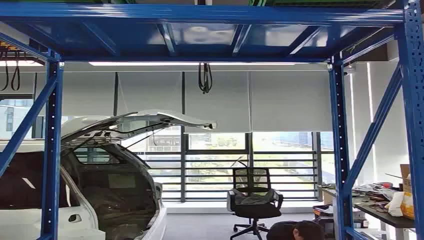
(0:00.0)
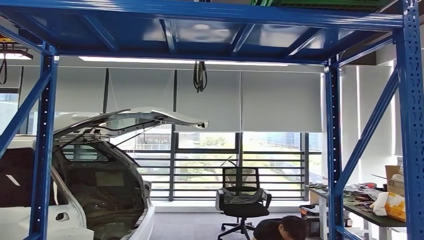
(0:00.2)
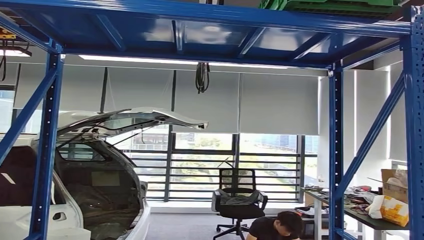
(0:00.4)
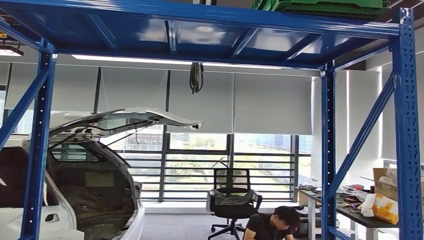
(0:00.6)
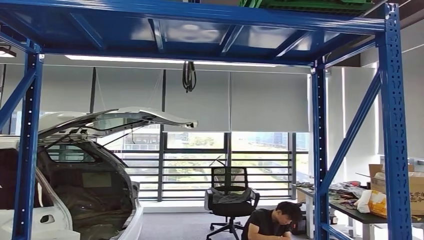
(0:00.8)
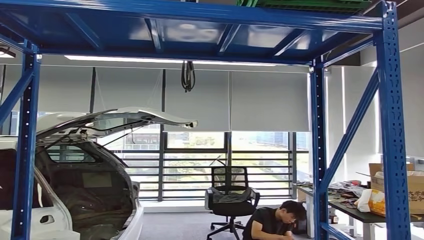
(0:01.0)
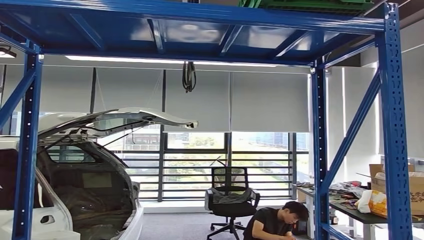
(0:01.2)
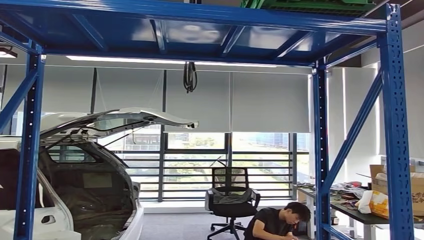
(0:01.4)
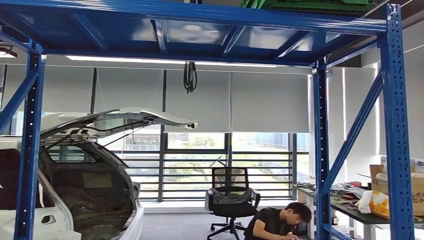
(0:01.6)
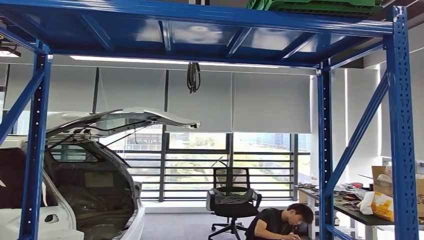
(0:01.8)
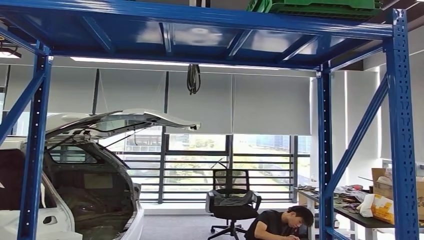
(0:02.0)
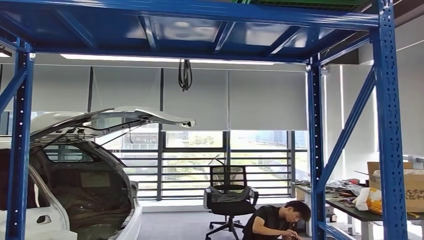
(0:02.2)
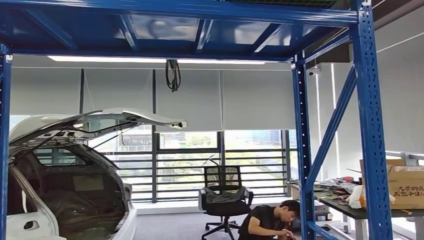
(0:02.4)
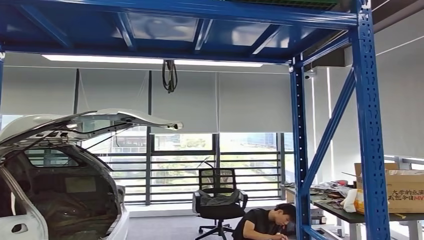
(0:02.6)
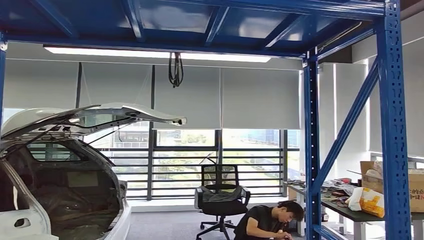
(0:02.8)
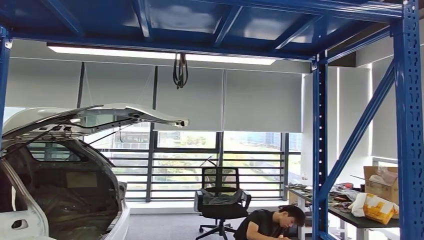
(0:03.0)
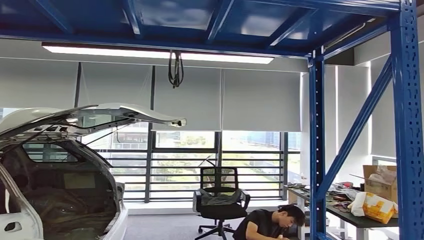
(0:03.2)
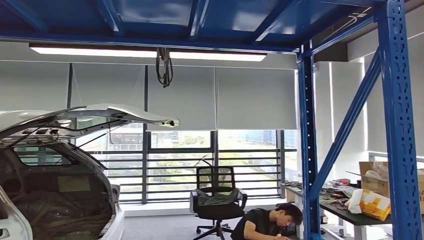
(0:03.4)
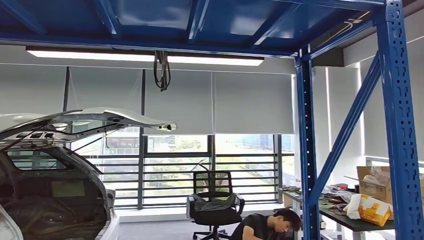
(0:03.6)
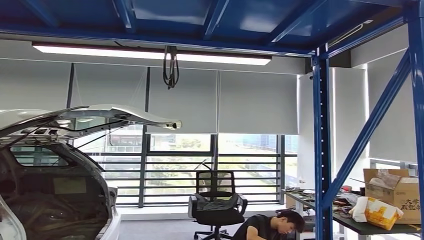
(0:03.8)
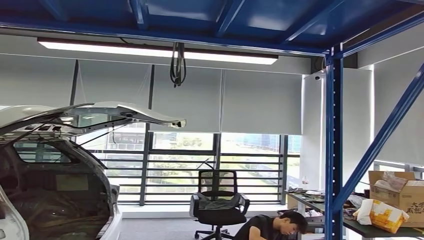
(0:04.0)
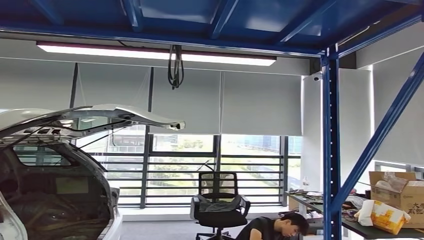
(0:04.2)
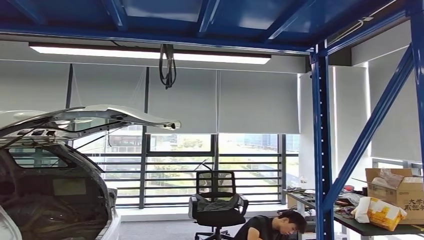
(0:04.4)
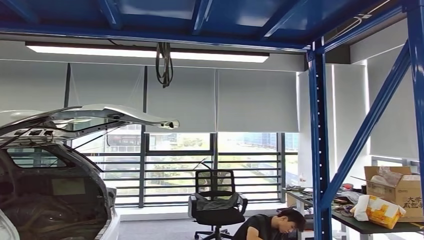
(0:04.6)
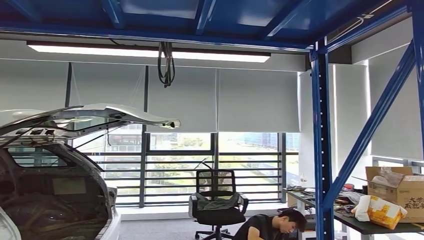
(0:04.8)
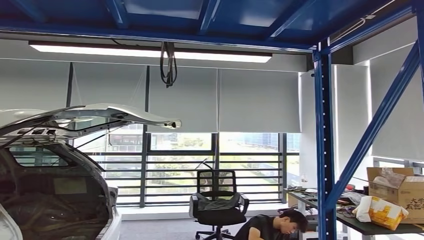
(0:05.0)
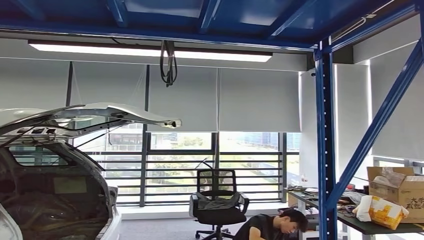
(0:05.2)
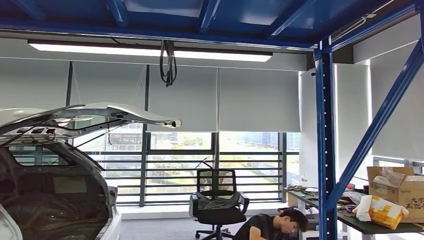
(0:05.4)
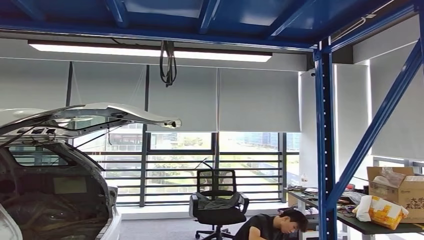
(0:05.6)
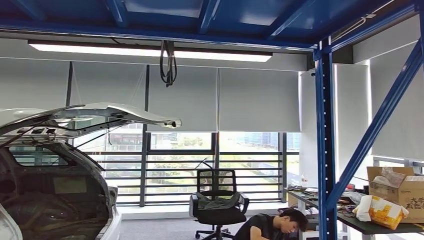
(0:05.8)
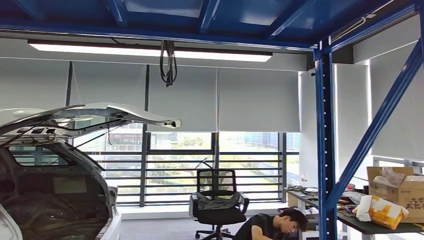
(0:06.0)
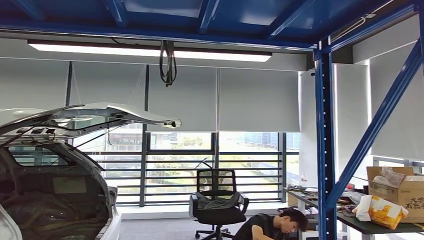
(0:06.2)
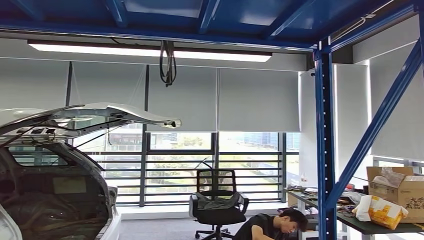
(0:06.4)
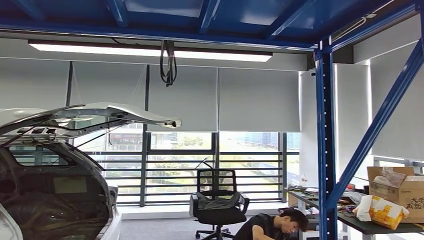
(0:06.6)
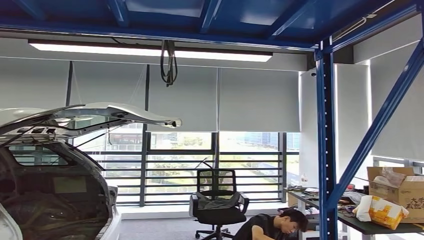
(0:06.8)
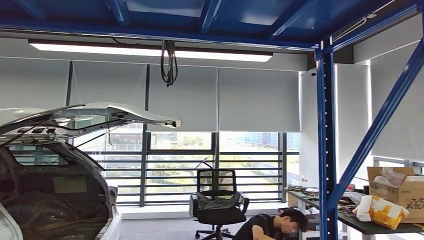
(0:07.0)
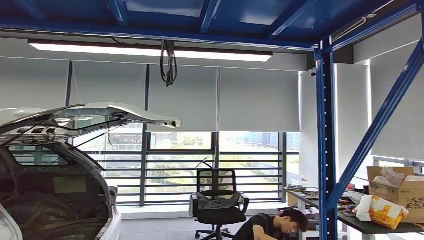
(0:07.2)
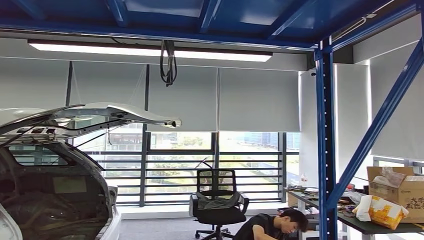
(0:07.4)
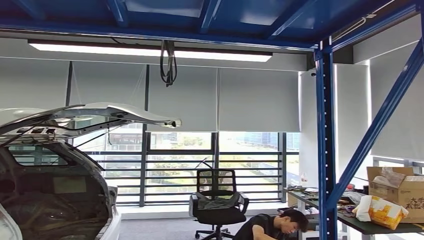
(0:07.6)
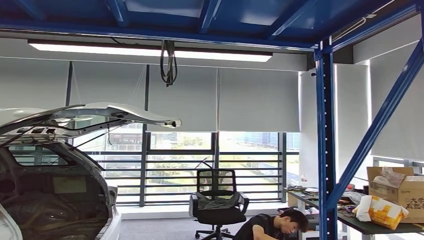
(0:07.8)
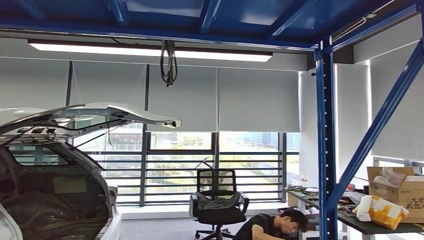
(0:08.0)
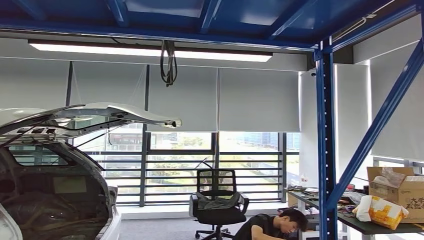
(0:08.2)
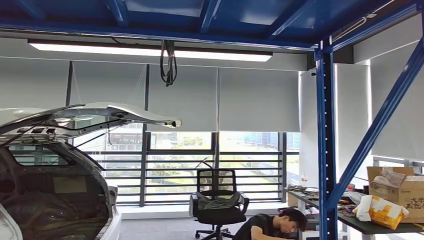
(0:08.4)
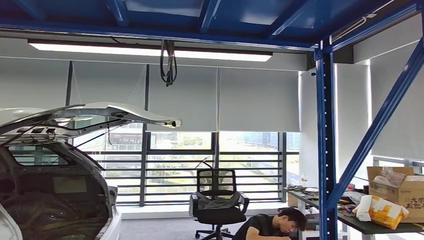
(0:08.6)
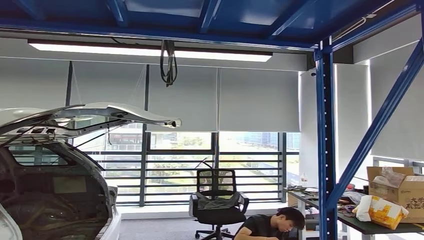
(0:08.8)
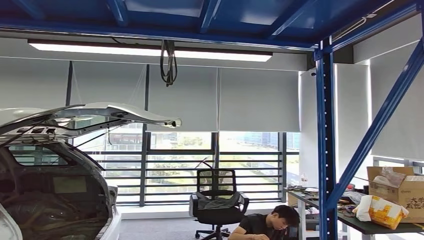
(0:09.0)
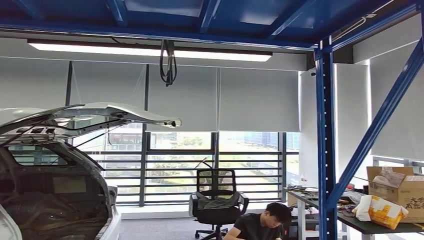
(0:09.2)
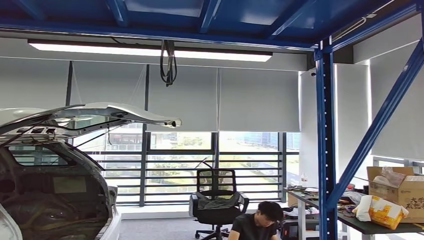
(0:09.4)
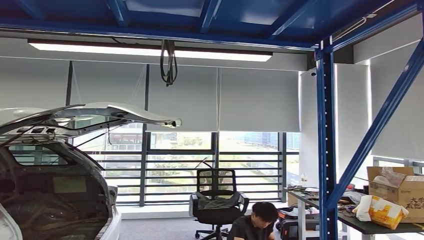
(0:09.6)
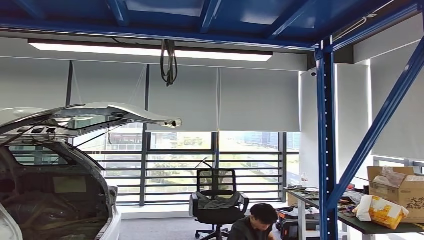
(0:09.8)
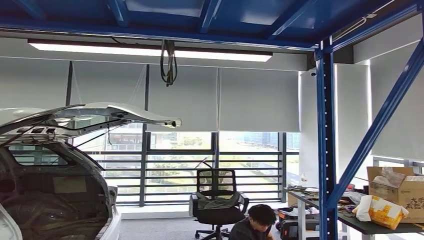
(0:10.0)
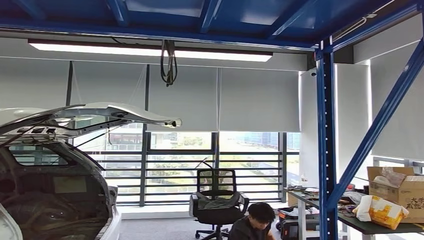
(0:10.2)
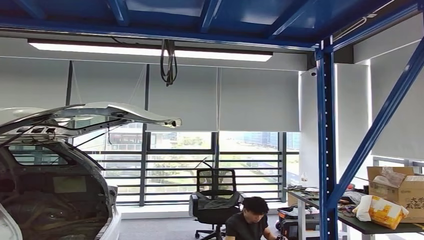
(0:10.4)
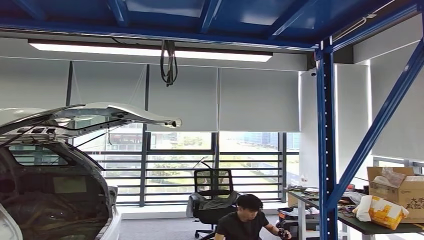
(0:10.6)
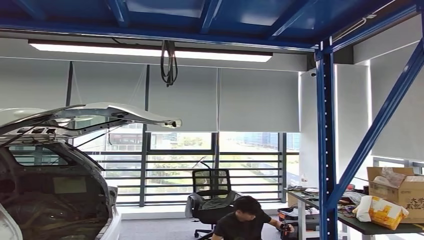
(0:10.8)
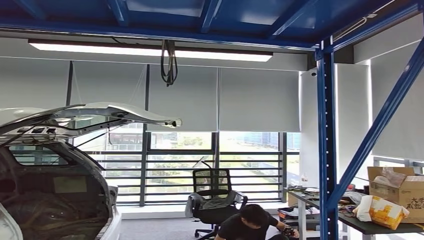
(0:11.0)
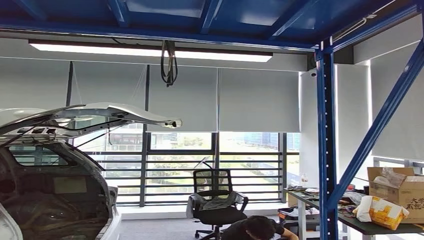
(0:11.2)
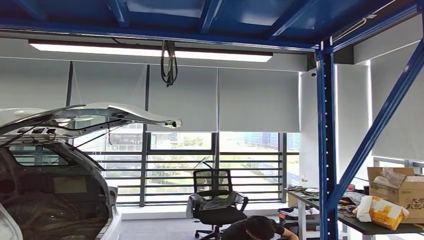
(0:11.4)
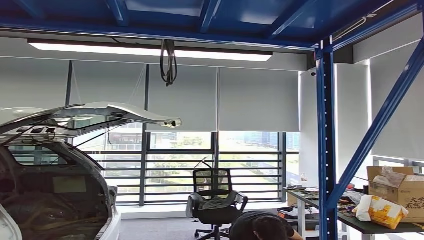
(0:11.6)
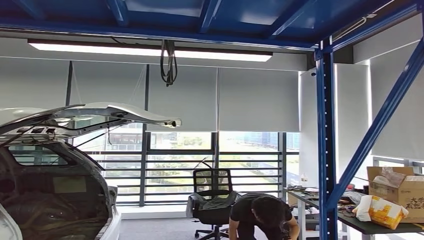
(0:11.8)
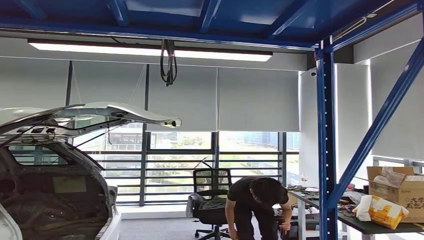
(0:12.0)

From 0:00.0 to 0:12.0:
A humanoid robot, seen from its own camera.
From 0:06.0 to 0:07.6: The right hand shifts about 10 cm to the left.
From 0:07.6 to 0:09.0: The right hand shifts by about 5 cm.
From 0:09.0 to 0:10.4: The right hand heads to the left, covering roughly 10 cm.
From 0:10.4 to 0:12.0: The hands move only a little.

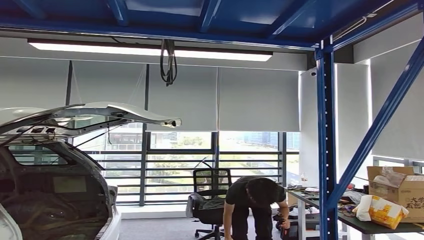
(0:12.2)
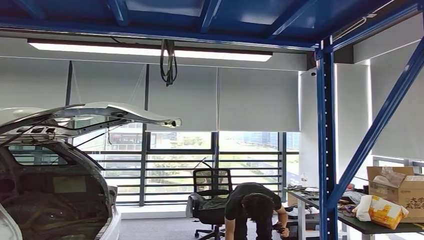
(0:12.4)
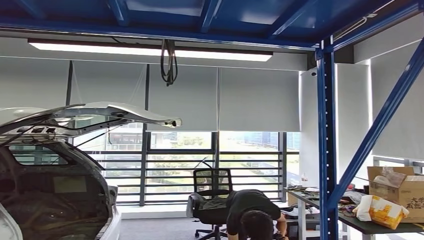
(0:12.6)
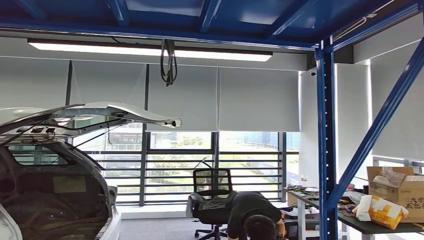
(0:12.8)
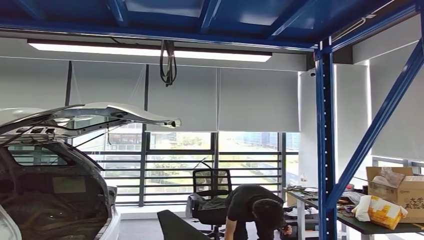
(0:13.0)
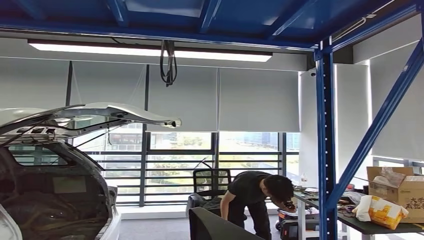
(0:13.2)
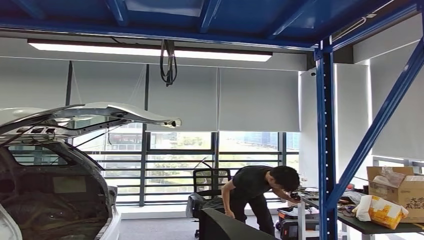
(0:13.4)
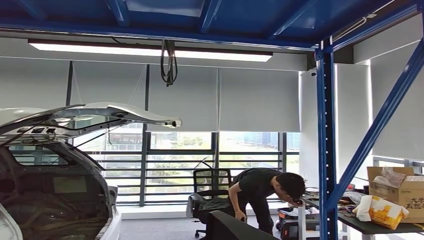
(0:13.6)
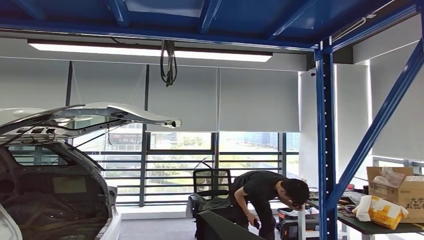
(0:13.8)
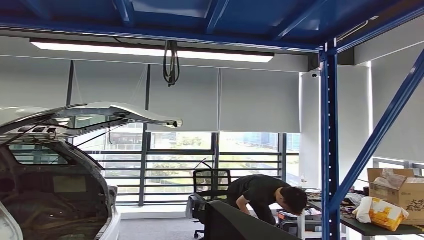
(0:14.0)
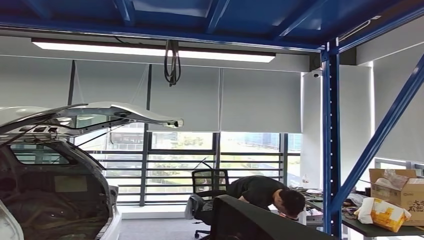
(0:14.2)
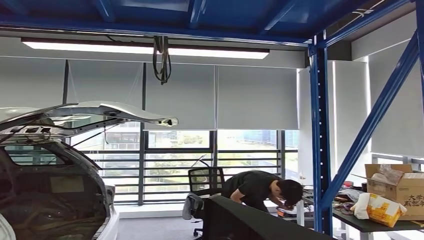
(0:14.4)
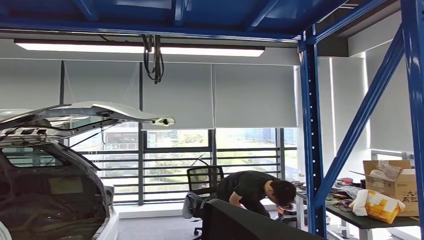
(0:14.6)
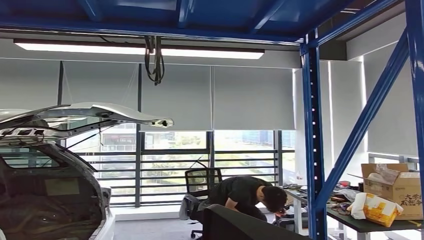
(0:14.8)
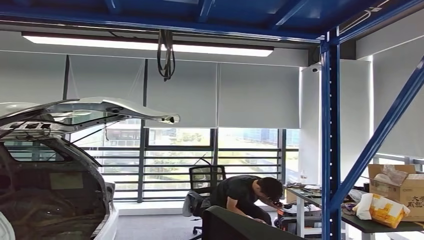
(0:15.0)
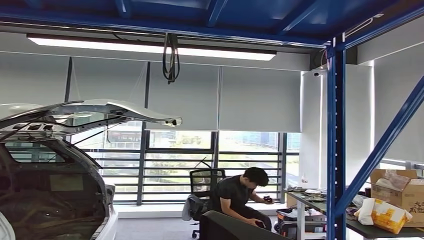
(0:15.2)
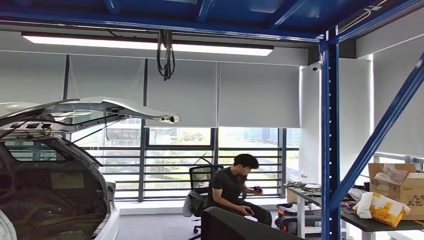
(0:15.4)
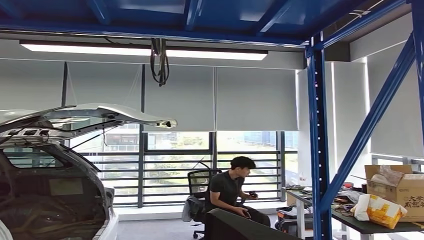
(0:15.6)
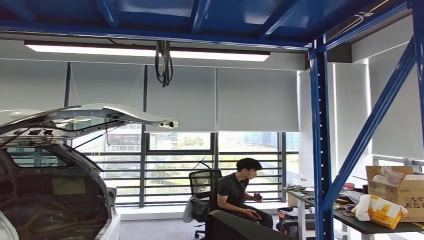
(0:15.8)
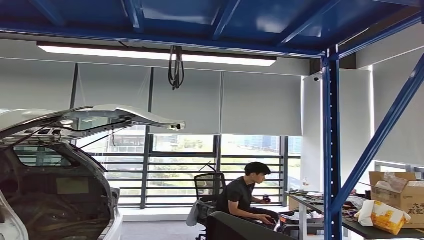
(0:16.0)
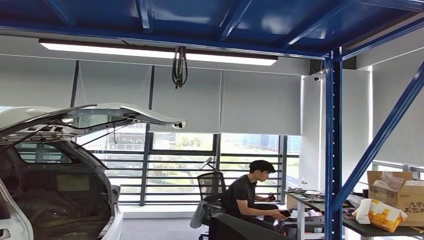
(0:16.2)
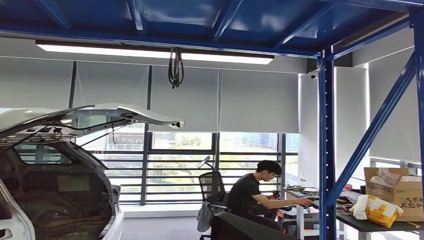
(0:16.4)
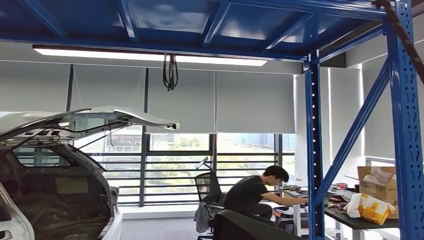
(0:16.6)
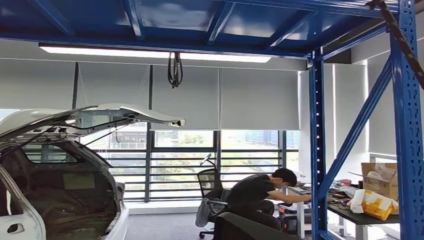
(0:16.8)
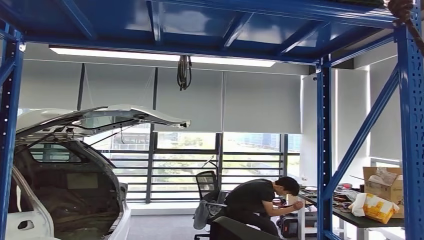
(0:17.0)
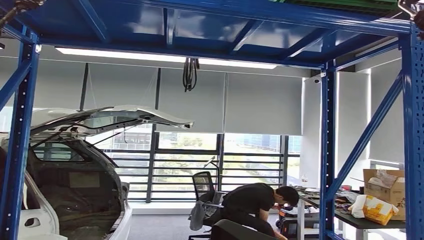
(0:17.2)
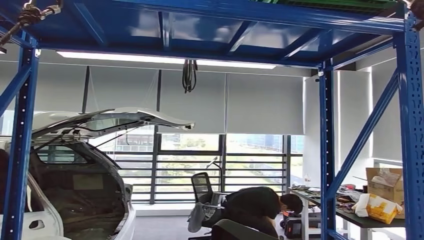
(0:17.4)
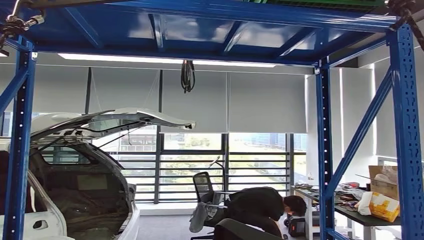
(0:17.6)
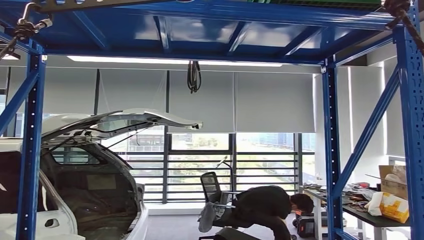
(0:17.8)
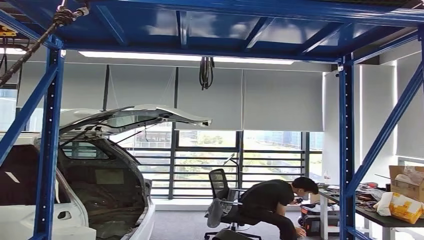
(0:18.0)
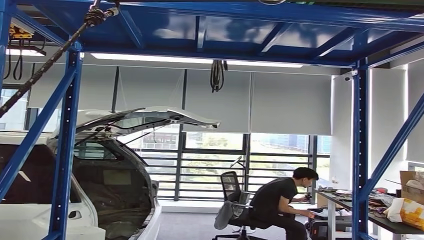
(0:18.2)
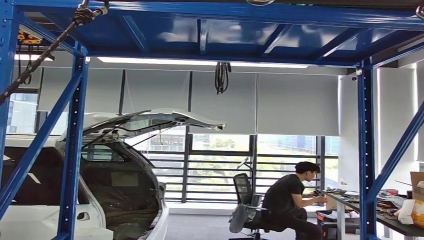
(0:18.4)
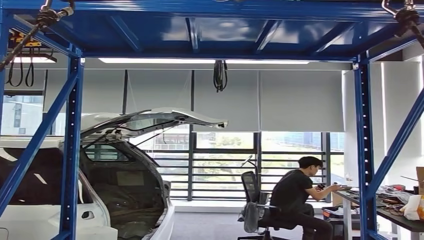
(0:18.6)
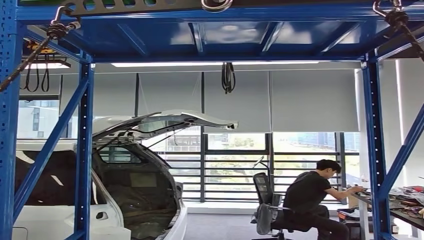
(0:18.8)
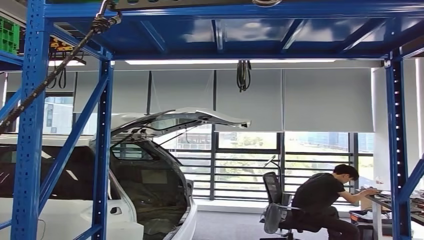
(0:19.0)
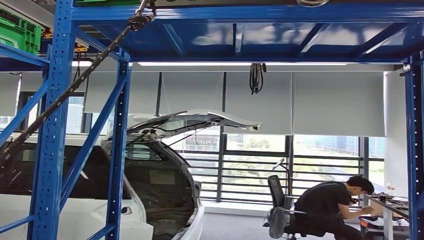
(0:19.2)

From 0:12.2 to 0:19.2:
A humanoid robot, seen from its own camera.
From 0:12.2 to 0:13.6: The right hand goes some 10 cm backward.
